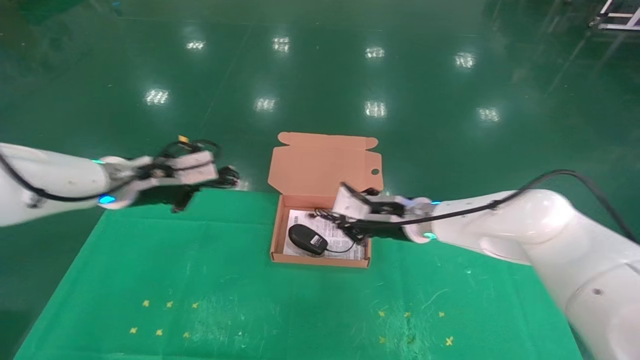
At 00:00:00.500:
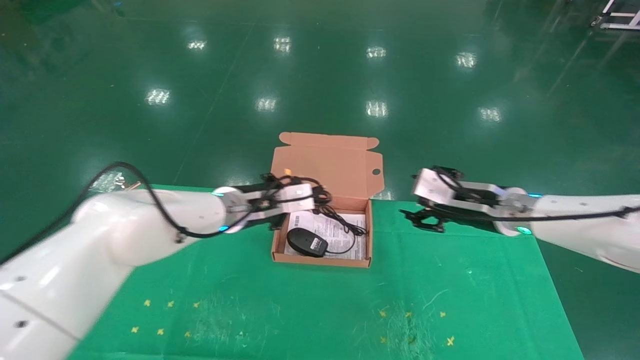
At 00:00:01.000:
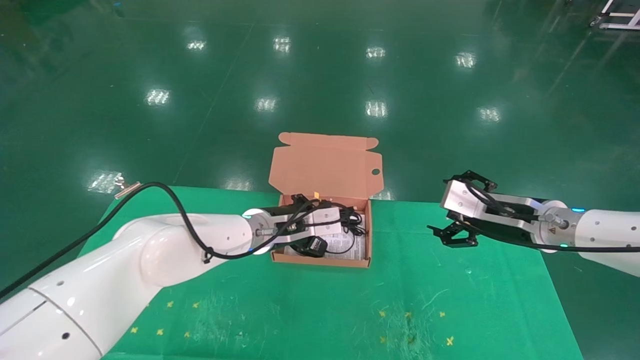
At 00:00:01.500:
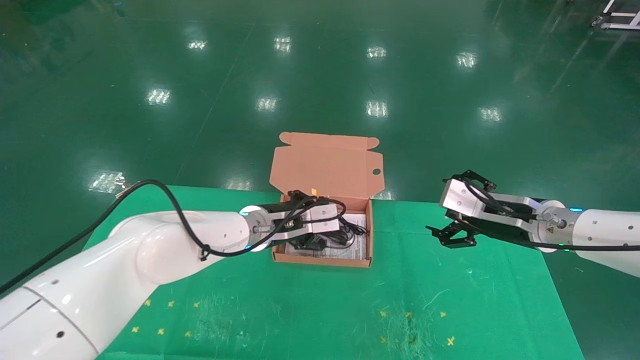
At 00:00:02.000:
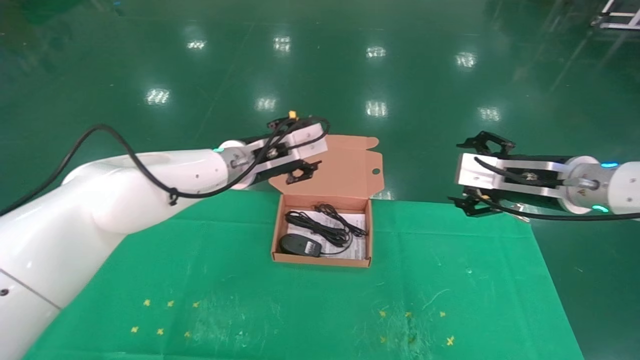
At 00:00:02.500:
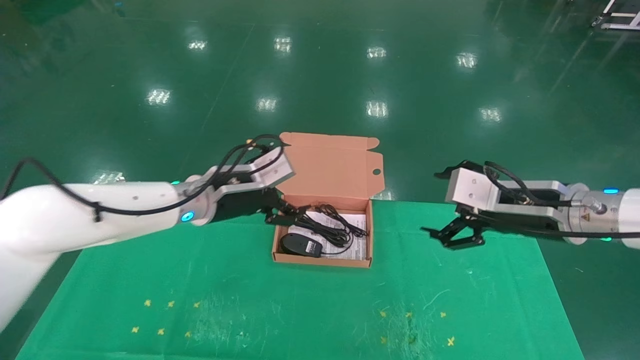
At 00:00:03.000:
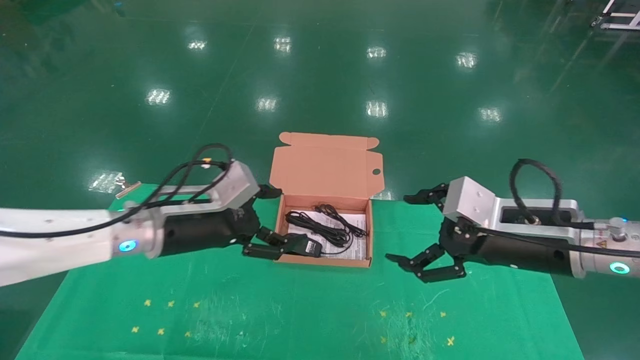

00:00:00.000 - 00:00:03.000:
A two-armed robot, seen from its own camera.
Task of the whole recording: grasp data cable left put into box grasp mouse right put into box.
Step, 00:00:00.000 - 00:00:02.000: Place the mouse and power cord into the box.
00:00:00.000 - 00:00:01.500: The right gripper moves to the right and backward, approximately 15 cm, and opens its fingers. Meanwhile the left gripper goes some 15 cm to the right.
00:00:01.500 - 00:00:03.000: The right gripper shifts about 10 cm backward; the left gripper heads to the left and backward, covering about 15 cm, and opens.
